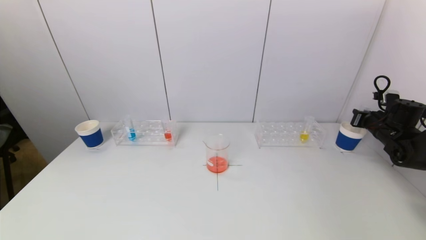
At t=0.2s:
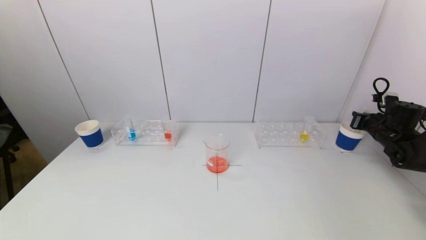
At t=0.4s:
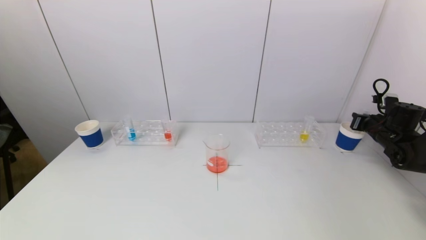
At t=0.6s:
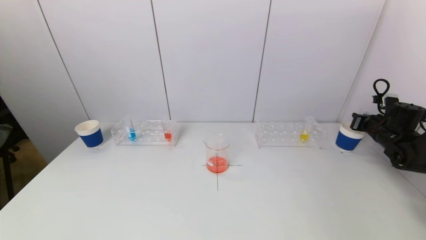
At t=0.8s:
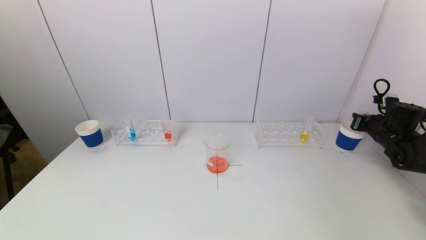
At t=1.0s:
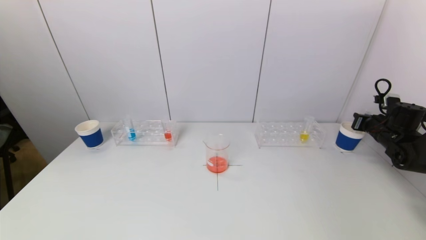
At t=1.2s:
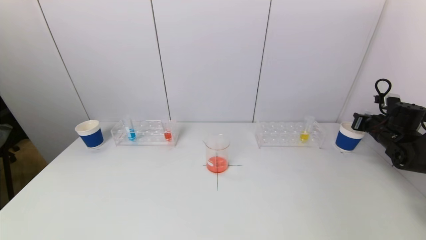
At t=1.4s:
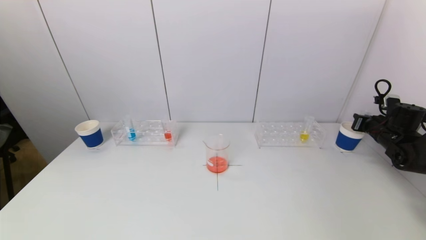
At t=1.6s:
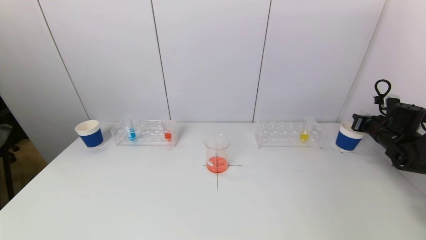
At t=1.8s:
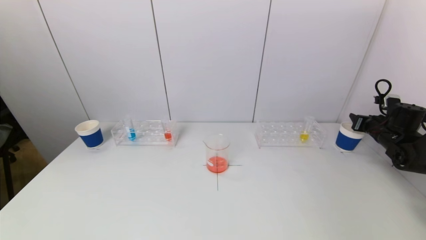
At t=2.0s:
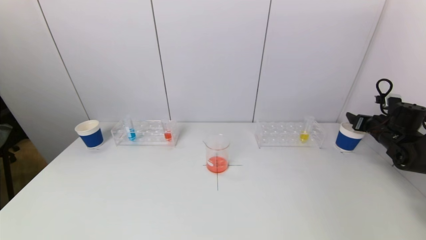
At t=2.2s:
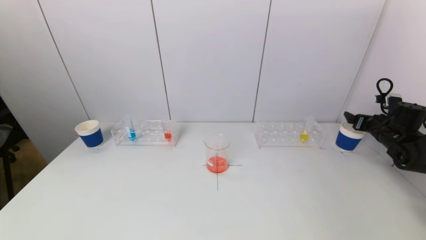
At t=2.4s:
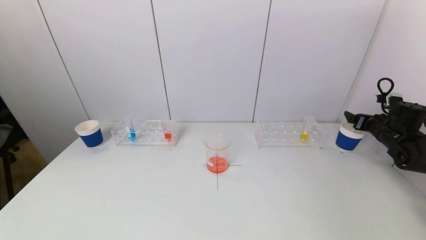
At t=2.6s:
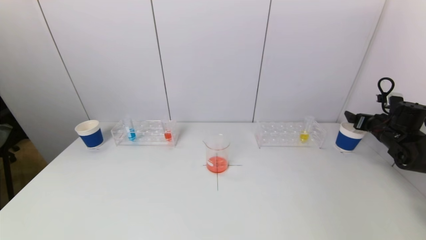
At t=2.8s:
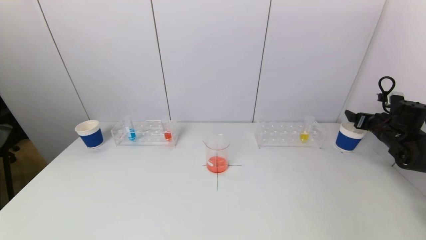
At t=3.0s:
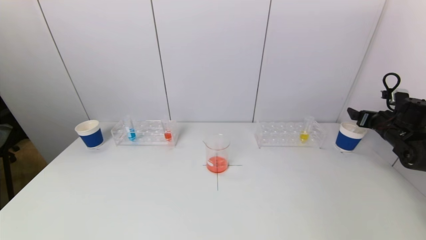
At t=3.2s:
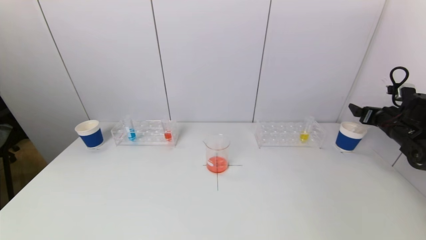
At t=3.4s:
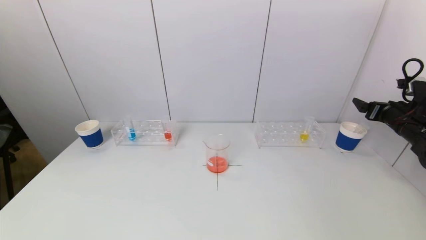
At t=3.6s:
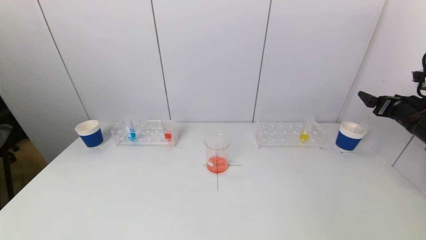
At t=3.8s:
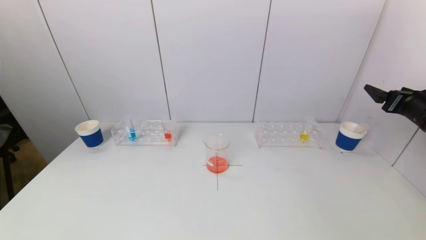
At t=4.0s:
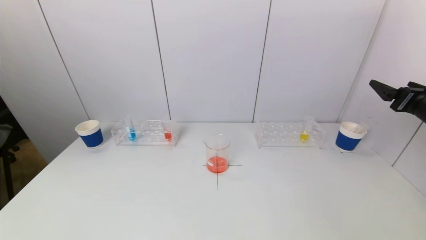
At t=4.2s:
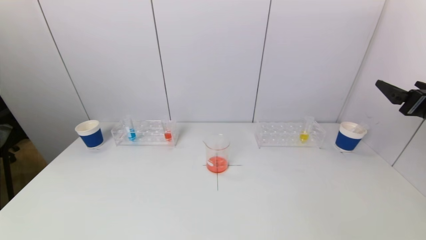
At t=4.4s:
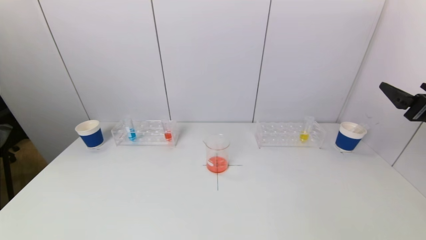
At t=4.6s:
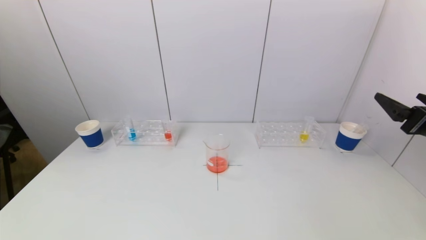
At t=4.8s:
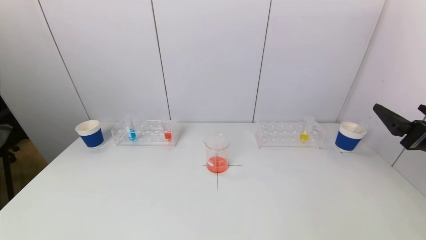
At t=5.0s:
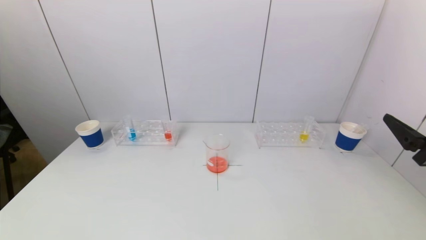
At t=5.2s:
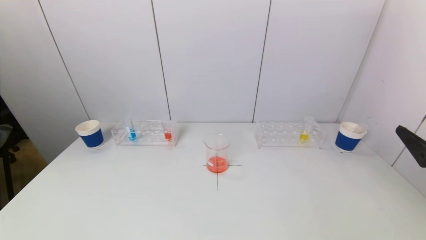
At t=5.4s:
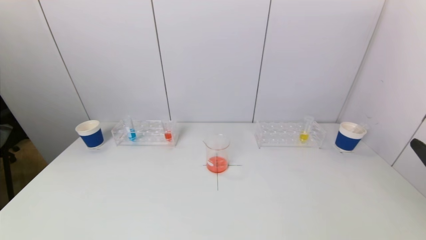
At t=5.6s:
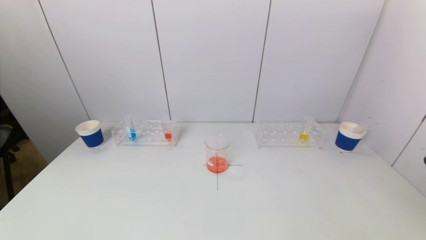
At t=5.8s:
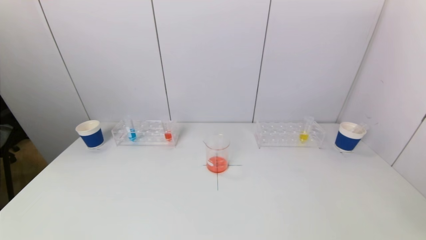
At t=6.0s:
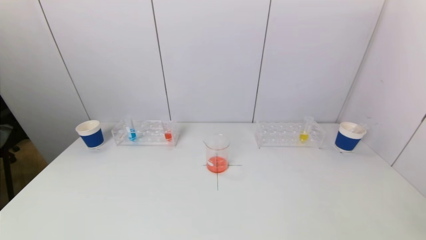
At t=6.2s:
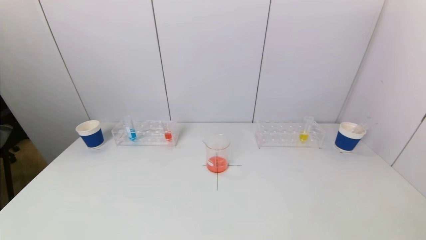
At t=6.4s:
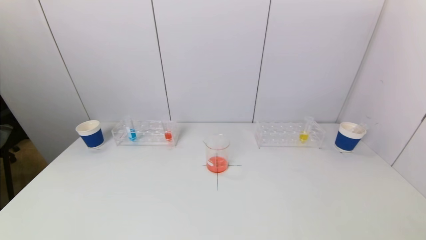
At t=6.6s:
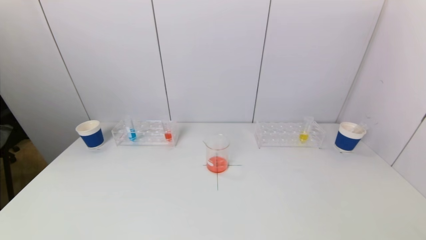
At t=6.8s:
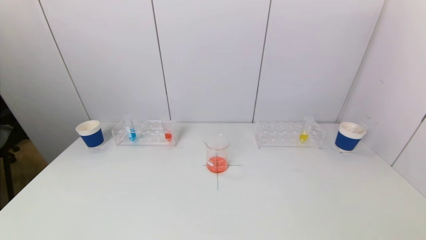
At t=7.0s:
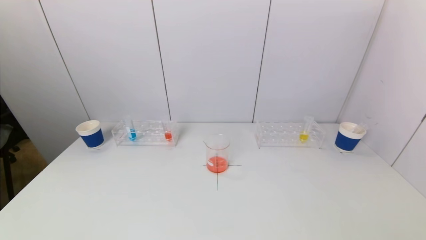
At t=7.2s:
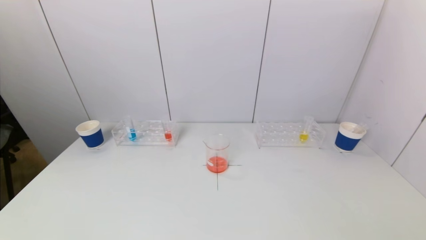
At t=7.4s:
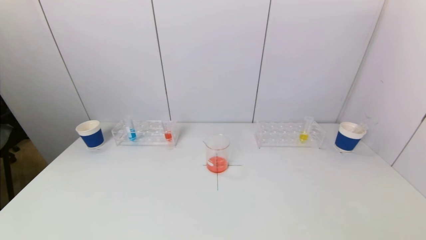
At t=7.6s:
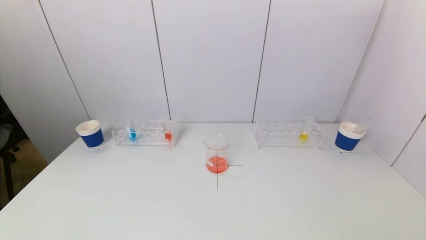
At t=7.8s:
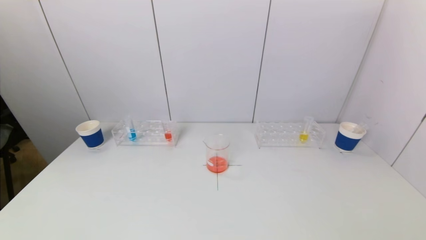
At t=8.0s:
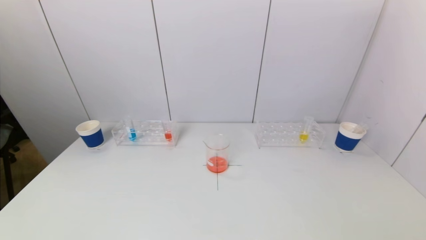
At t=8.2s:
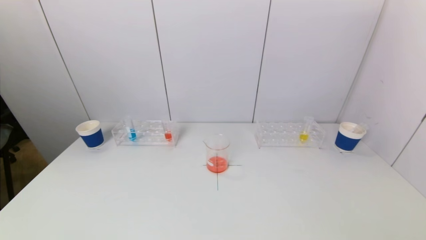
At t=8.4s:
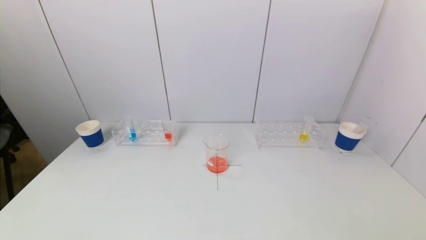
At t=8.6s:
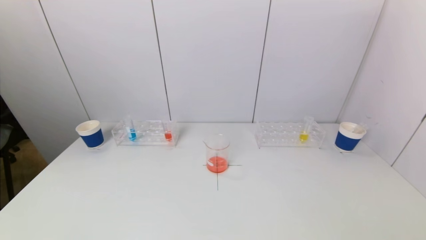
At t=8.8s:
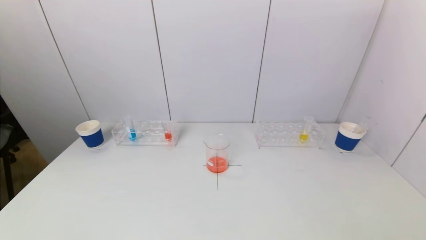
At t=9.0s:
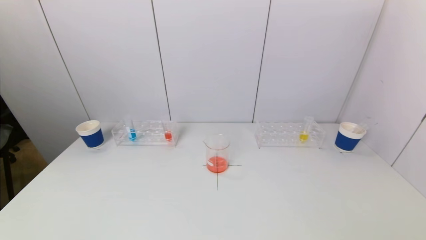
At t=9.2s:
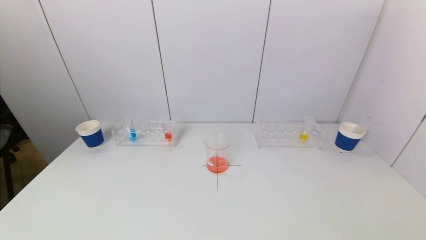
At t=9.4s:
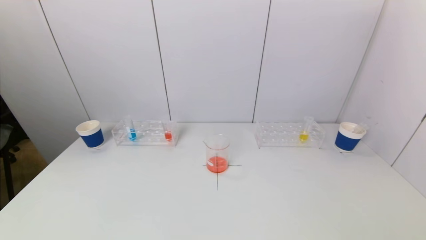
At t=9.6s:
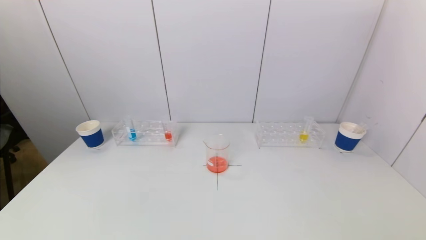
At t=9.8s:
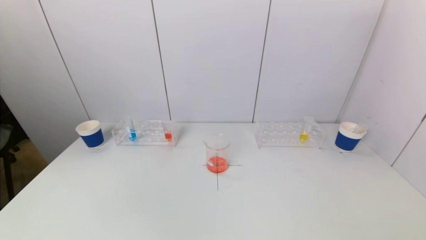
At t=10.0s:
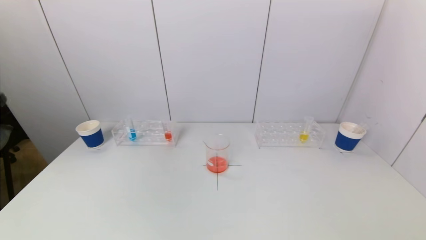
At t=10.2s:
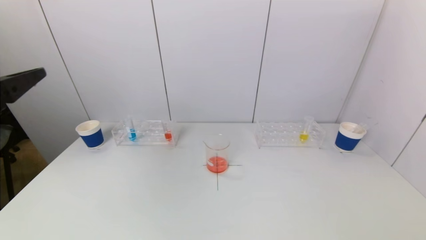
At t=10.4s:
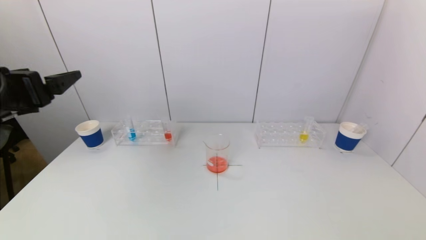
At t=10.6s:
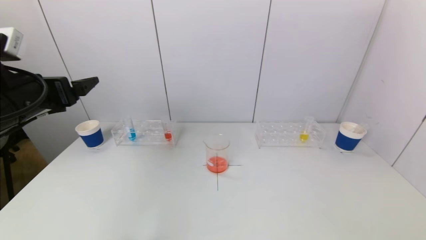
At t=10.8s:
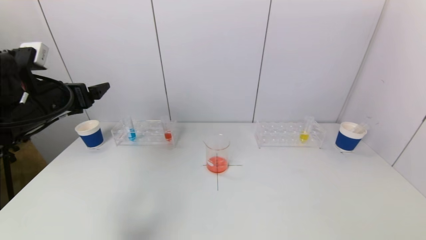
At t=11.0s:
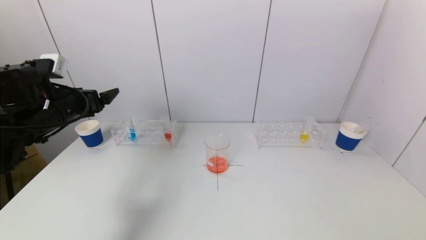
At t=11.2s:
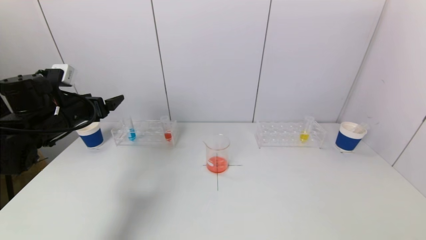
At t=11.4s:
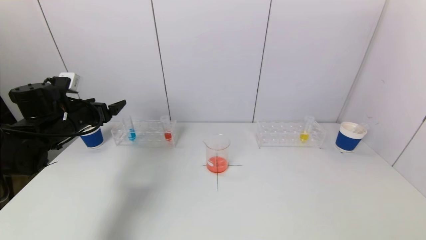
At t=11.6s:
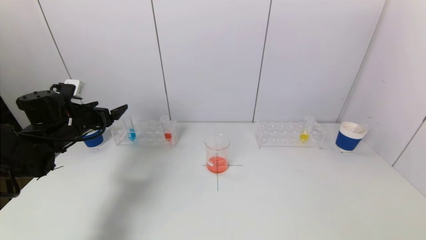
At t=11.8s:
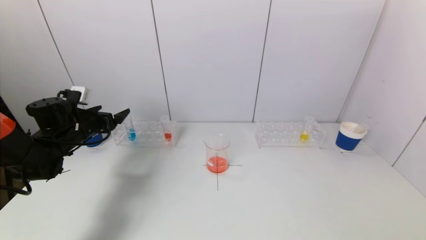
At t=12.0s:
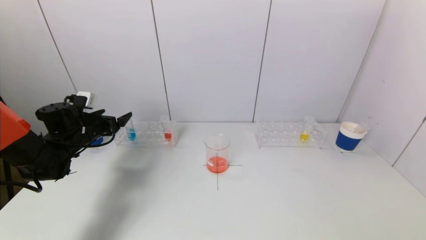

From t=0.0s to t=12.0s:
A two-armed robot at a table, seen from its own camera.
Task of the whole recording: pick up a test tube with pigment on left test tube rack and a test tube with pigment on right test tube rack by grippers and pour them into the beaker.
Step, from t=0.0s to t=2.6s: Place the test tube into the paper cup with the right gripper.
From t=0.0s to t=1.6s: Neither gripper changes place.
From t=1.6s to t=3.0s: The right gripper opens.
From t=3.0s to t=4.4s: The right gripper moves backward, upward and to the left, some 20 cm.
From t=4.4s to t=6.0s: The right gripper goes approximately 20 cm backward.
From t=9.0s to t=10.4s: The left gripper shifts about 30 cm forward and upward.
From t=10.4s to t=12.0s: The left gripper heads forward and downward, covering about 25 cm.

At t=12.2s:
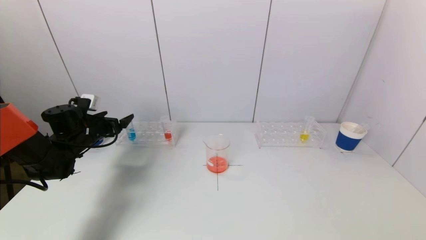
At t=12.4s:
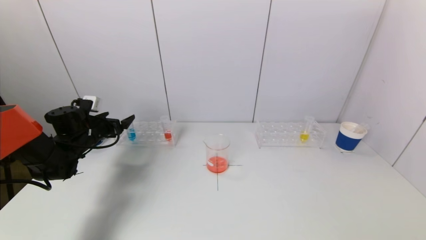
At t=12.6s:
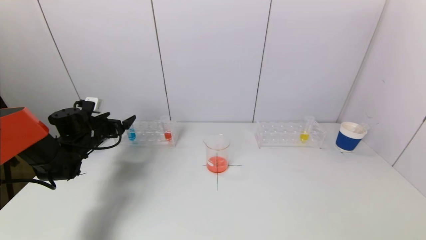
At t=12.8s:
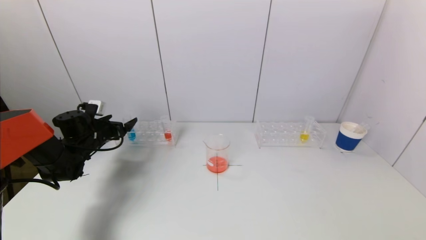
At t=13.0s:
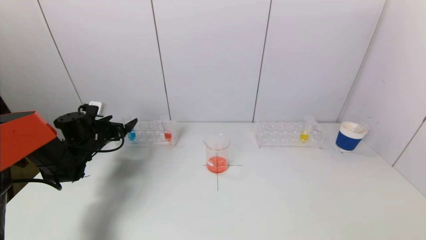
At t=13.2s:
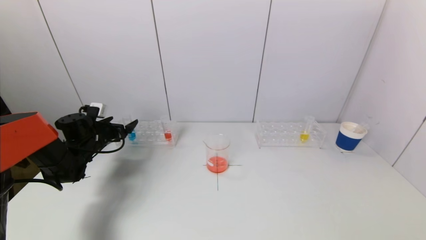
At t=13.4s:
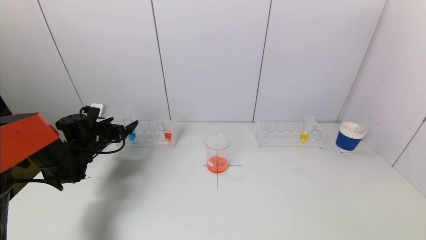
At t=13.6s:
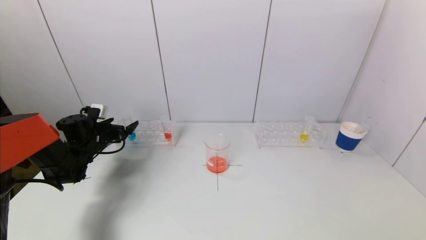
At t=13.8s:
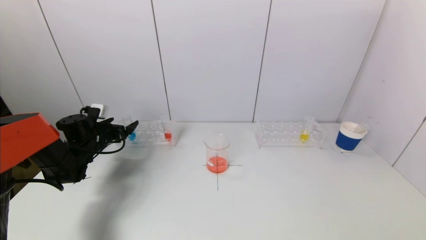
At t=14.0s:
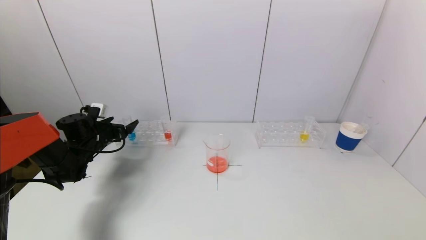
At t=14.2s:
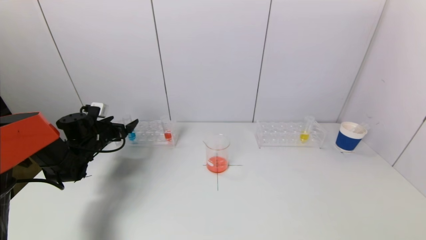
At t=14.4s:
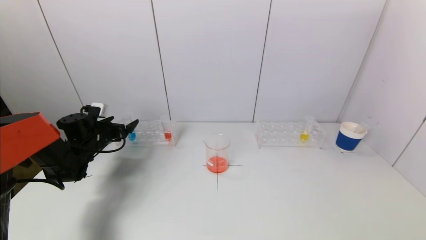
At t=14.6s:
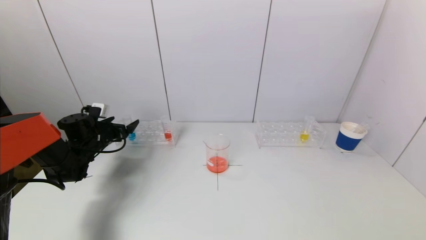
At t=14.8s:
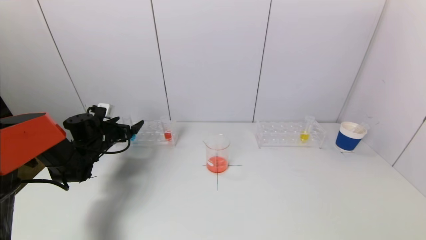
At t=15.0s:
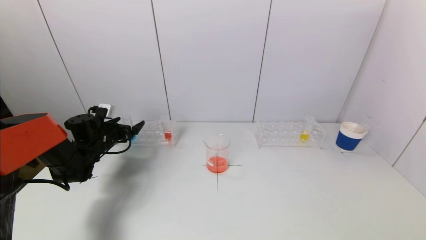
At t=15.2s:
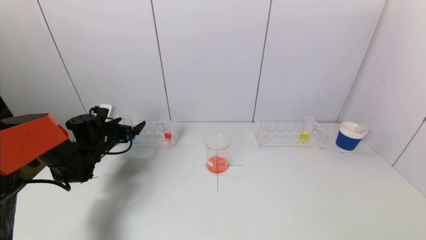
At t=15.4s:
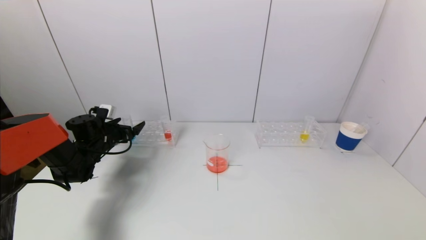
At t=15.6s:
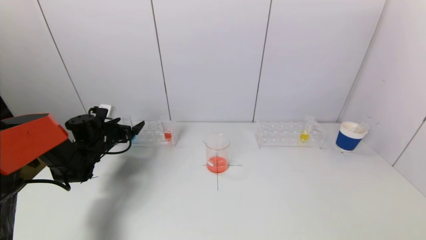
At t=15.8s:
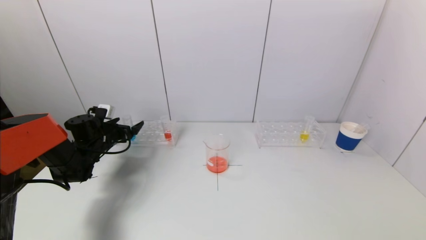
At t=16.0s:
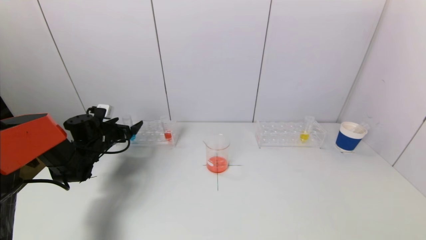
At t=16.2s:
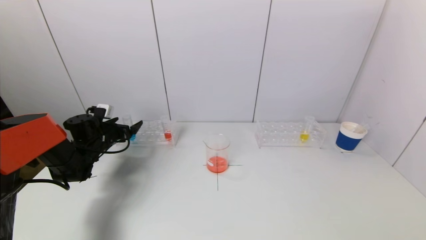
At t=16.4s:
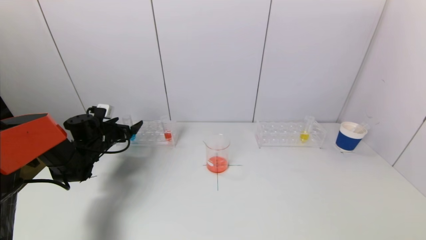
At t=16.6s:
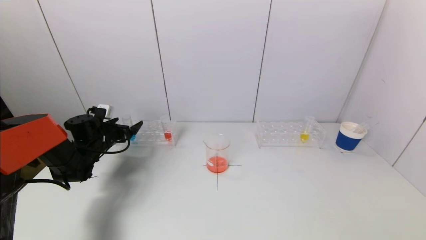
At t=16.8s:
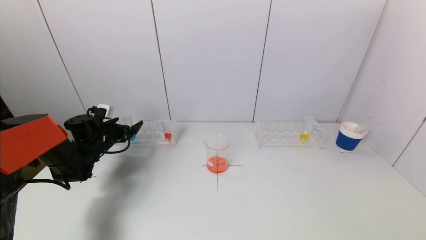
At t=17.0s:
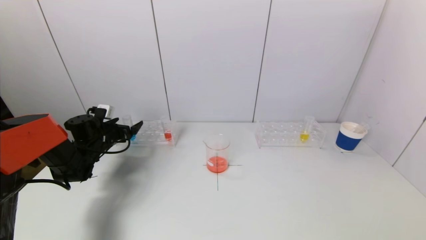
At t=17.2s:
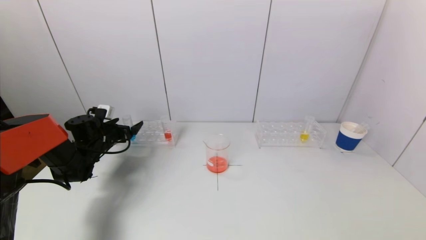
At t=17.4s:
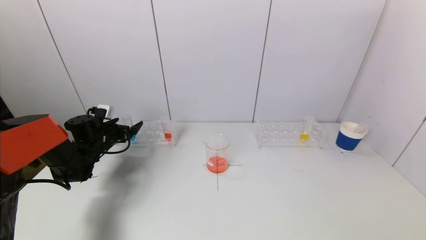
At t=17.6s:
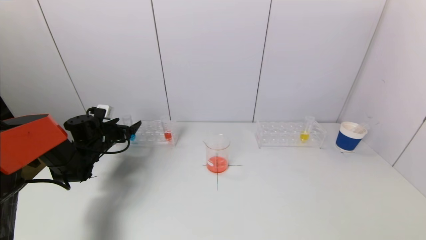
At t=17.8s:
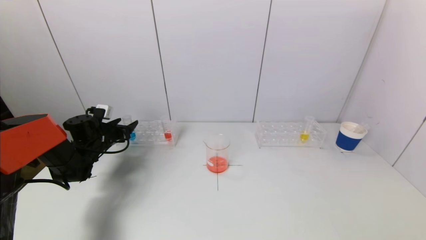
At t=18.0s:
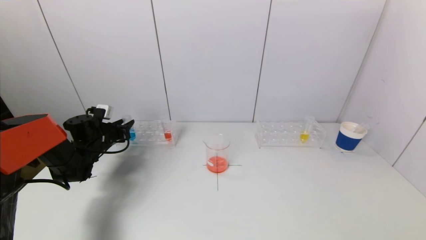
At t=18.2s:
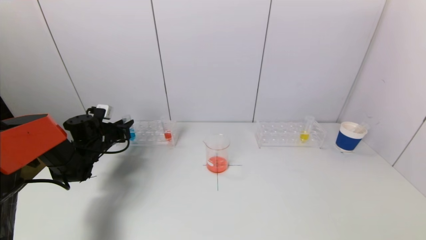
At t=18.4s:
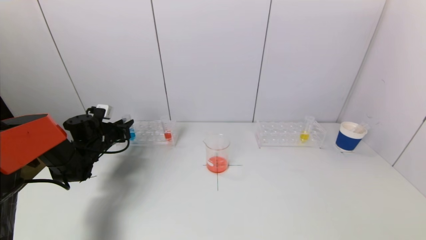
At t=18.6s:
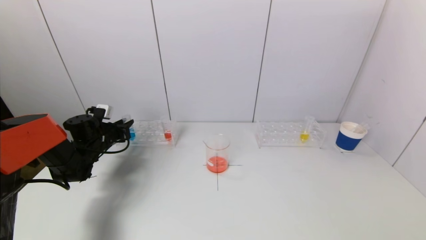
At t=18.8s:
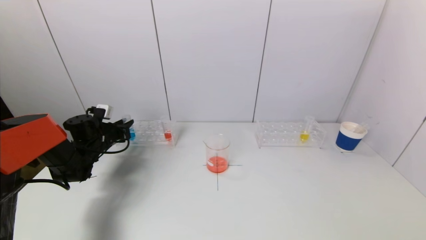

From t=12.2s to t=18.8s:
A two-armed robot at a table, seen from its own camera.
Task of the whole recording: pick up a test tube with pigment on left test tube rack and a test tube with pigment on right test tube rack by grippers and pour them into the beaker.
Step, from t=12.2s to t=18.2s: Grasp the blue reagent with the left gripper.
From t=12.2s to t=15.4s: The grippers make only small movements.
From t=15.4s to t=17.2s: Both grippers stay about where they are.
From t=17.2s to t=18.8s: The left gripper closes up.
